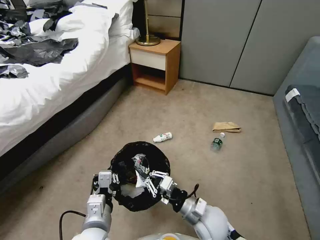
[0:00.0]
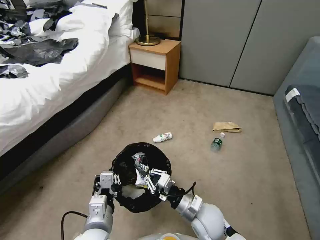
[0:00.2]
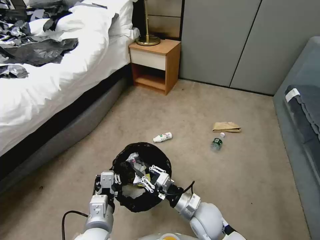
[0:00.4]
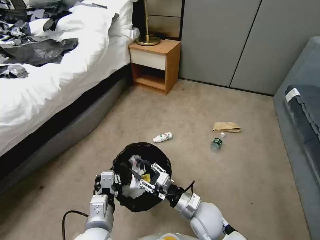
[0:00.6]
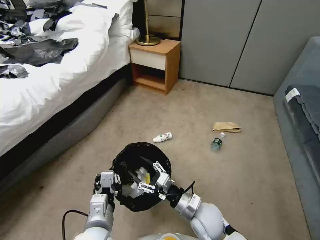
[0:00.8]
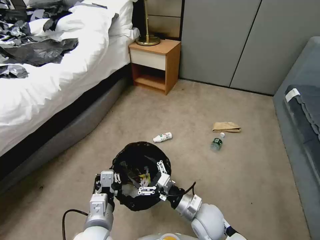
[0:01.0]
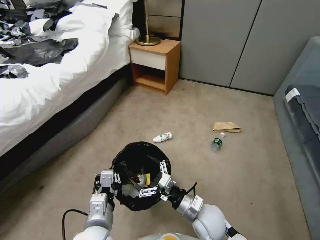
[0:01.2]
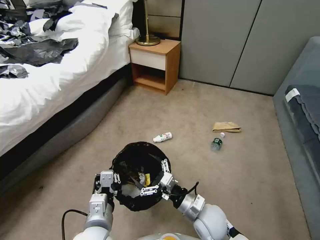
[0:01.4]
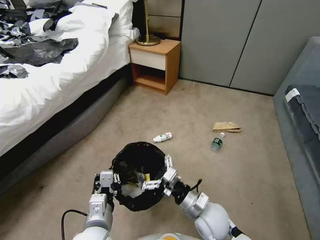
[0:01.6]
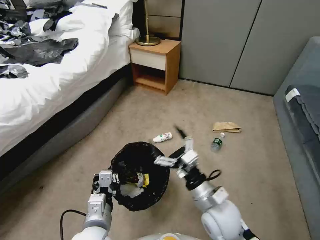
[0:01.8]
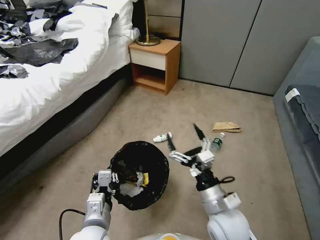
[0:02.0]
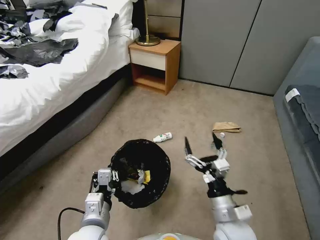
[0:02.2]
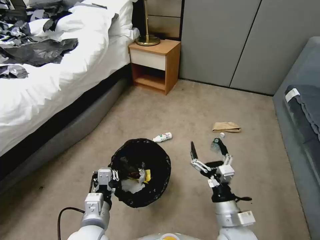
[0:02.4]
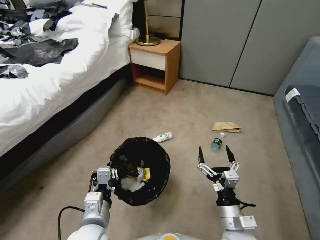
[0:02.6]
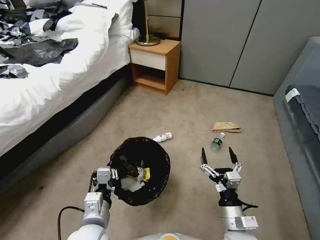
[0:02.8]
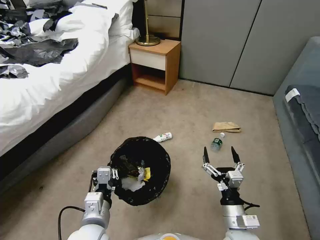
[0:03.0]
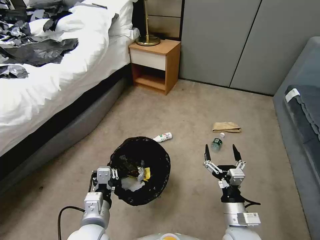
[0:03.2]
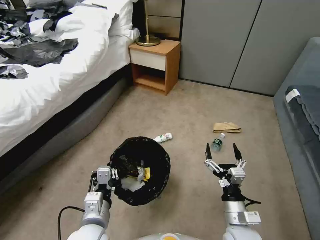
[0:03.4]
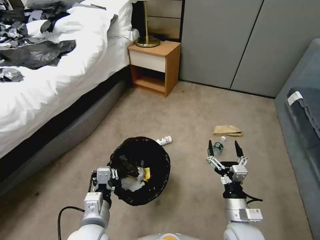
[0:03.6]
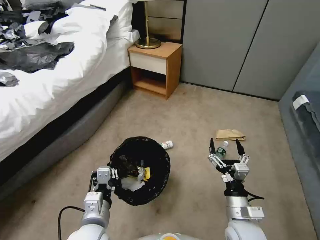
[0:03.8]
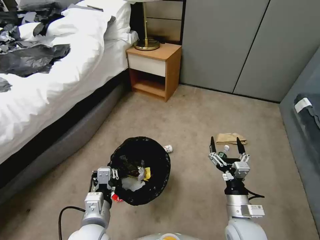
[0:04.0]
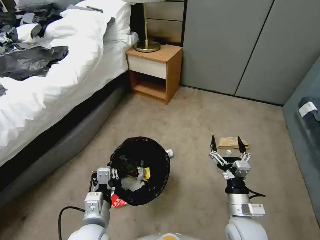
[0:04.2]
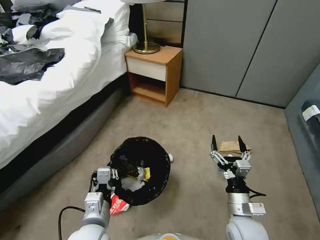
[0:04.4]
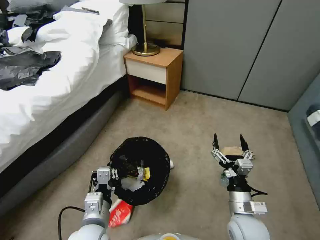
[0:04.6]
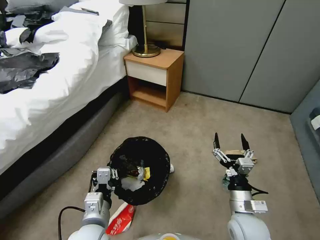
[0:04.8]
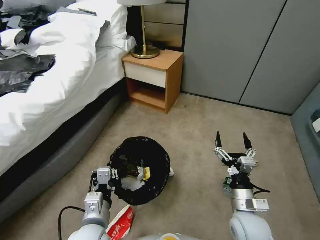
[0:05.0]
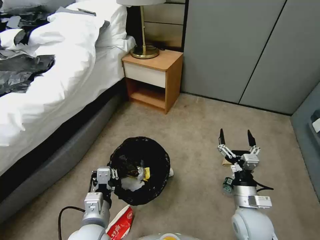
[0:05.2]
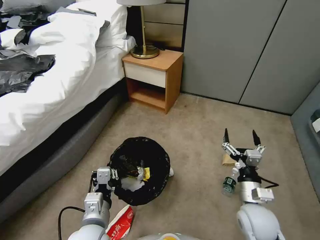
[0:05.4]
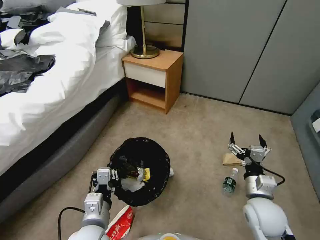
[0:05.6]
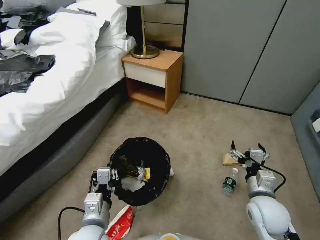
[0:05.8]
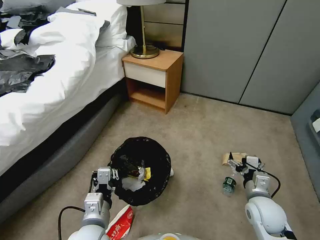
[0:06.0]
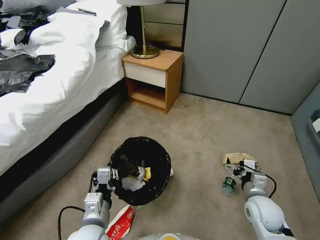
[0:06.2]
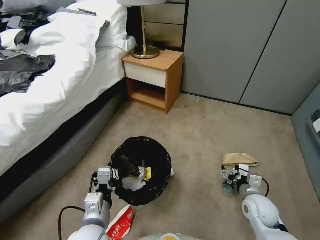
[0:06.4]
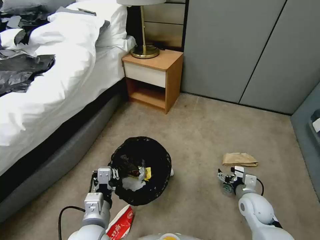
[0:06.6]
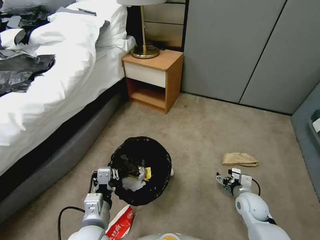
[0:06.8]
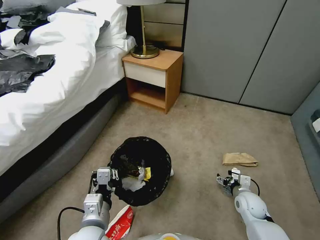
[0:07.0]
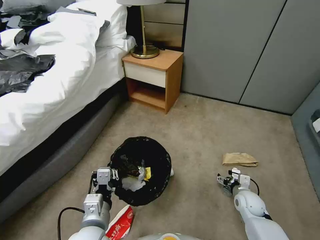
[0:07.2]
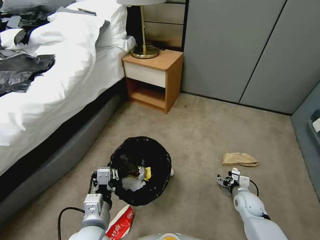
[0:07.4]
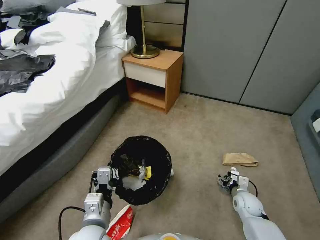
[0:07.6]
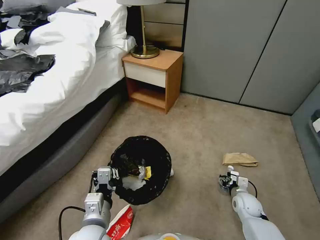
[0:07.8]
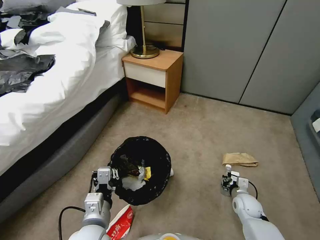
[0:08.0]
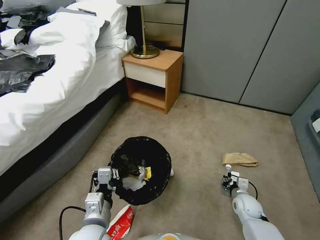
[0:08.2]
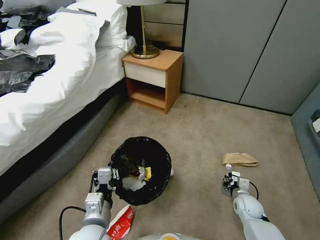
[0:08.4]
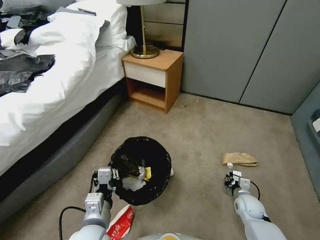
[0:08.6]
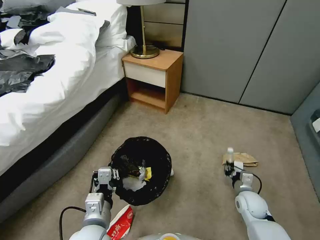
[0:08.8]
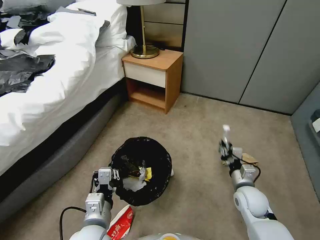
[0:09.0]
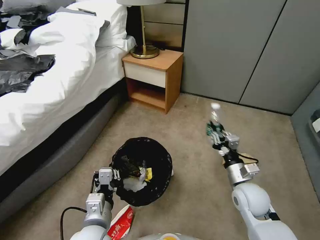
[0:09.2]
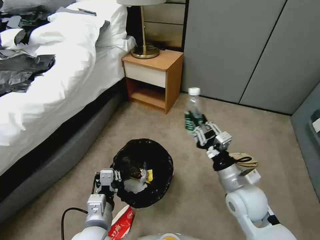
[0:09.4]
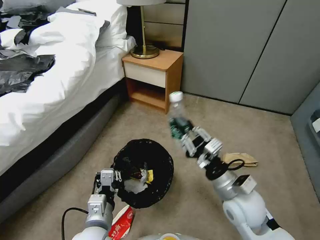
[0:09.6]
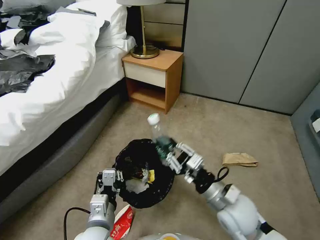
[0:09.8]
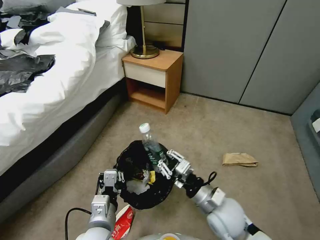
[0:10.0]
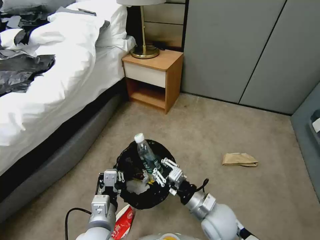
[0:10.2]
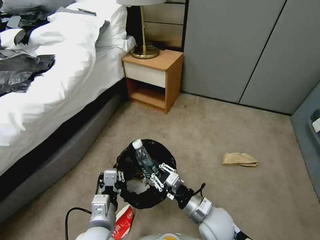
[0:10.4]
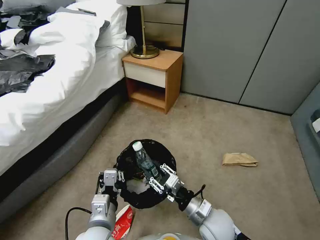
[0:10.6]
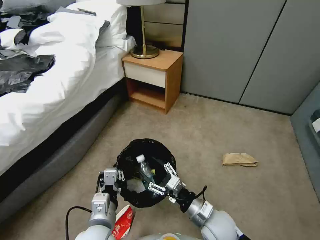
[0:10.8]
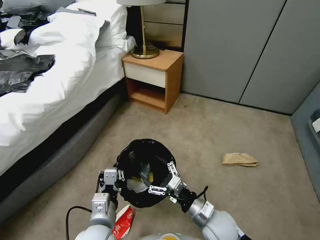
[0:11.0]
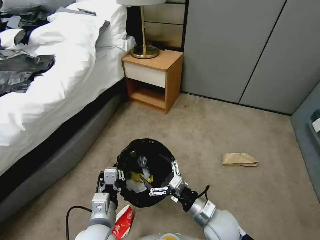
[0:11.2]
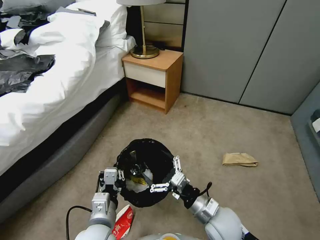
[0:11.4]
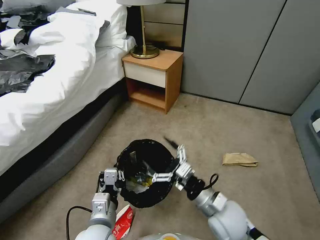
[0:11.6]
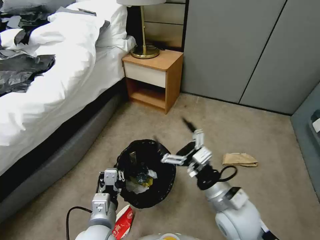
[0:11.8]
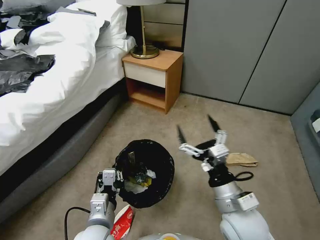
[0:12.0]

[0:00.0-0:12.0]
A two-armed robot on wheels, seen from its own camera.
Task of the whole recording: Pick up the trash bin, then pick up the garbage from the floor and place it into the trash bin.
0:00.0 to 0:01.6: The right gripper opens its fingers.
0:01.6 to 0:03.0: The right gripper shifts approximately 10 cm to the right and backward, and reaches about 10 cm upward, then returns.
0:04.4 to 0:06.0: The right gripper shifts approximately 5 cm to the right.
0:06.0 to 0:07.6: The right gripper heads downward and forward, covering roughly 15 cm.
0:07.6 to 0:09.0: The right gripper closes up.
0:09.0 to 0:10.4: The right gripper goes approximately 20 cm to the left, backward and upward.
0:10.4 to 0:12.0: The right gripper is displaced upward by approximately 10 cm, and opens.

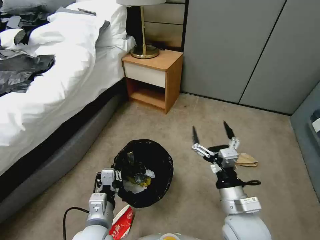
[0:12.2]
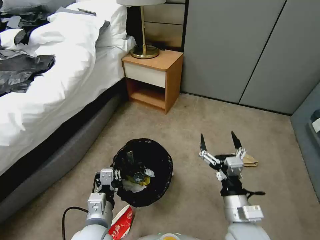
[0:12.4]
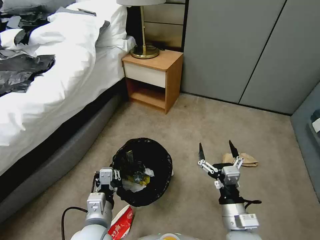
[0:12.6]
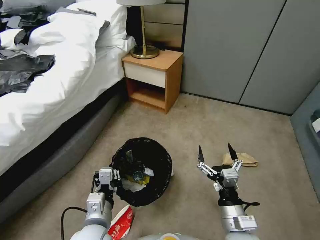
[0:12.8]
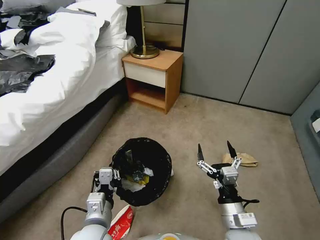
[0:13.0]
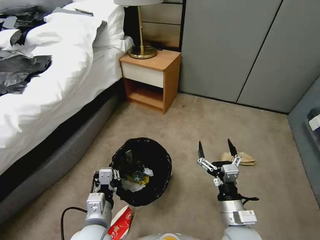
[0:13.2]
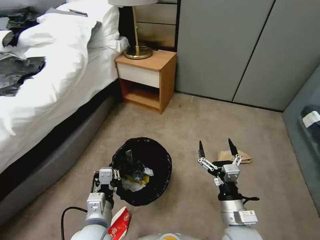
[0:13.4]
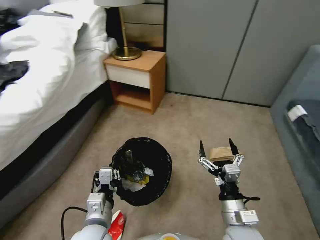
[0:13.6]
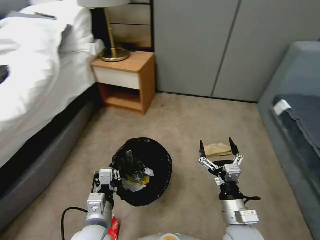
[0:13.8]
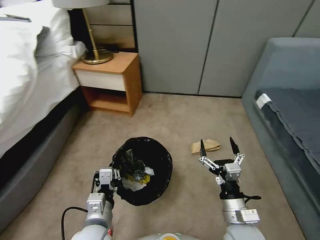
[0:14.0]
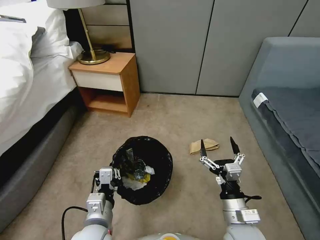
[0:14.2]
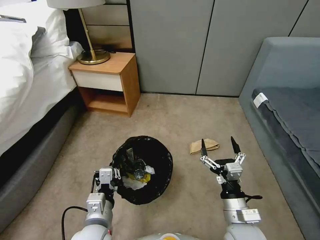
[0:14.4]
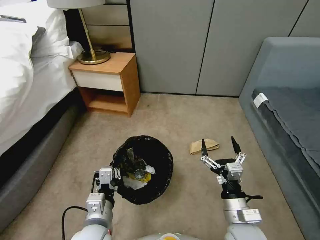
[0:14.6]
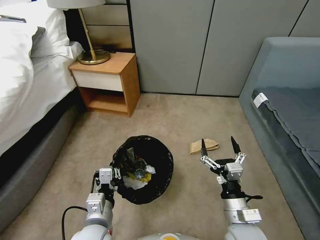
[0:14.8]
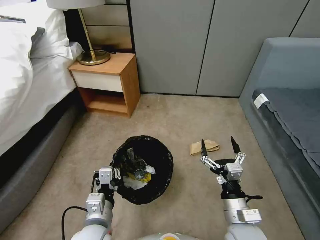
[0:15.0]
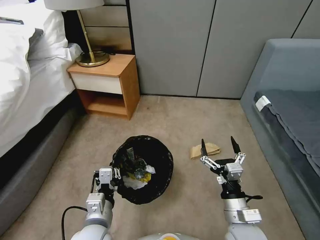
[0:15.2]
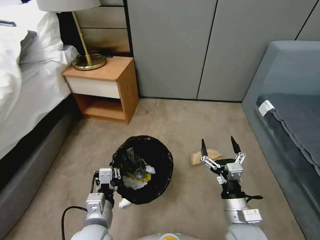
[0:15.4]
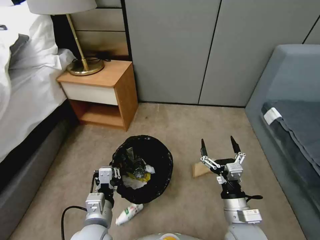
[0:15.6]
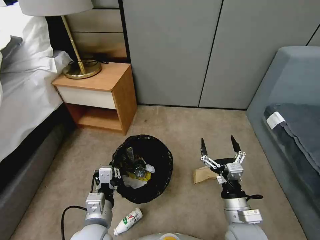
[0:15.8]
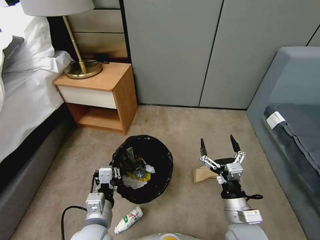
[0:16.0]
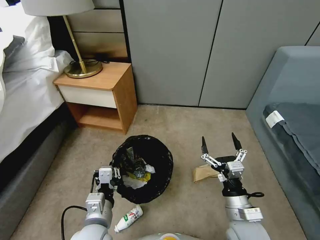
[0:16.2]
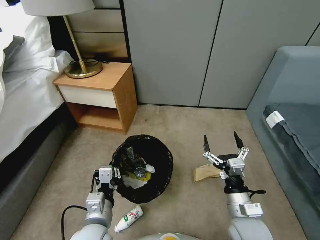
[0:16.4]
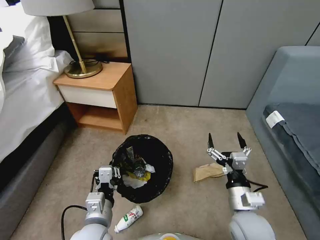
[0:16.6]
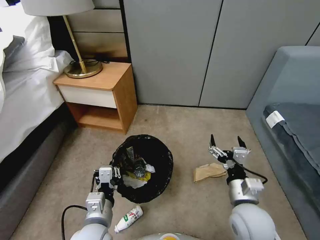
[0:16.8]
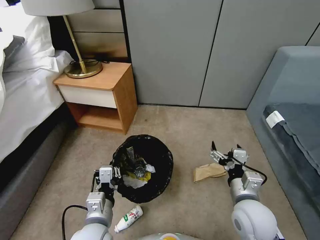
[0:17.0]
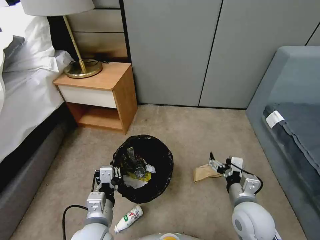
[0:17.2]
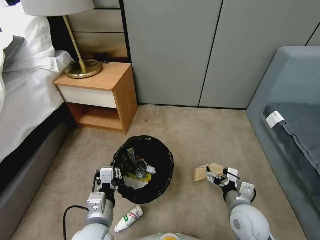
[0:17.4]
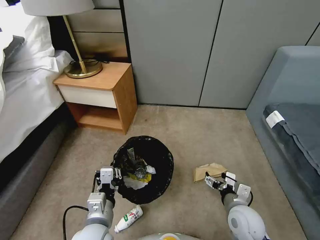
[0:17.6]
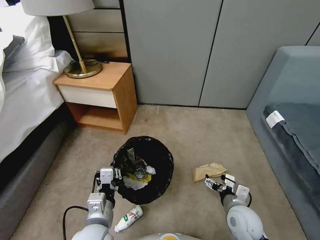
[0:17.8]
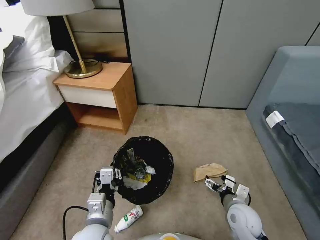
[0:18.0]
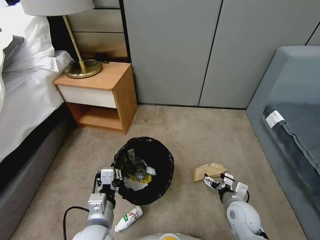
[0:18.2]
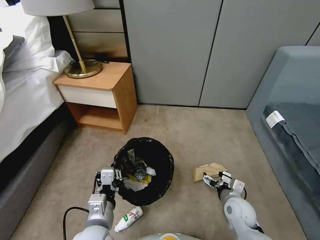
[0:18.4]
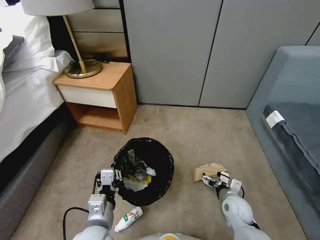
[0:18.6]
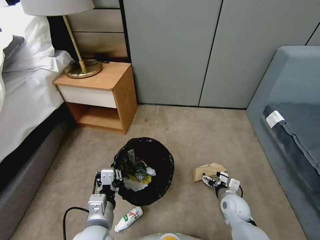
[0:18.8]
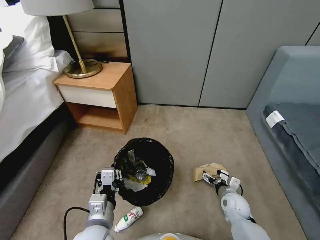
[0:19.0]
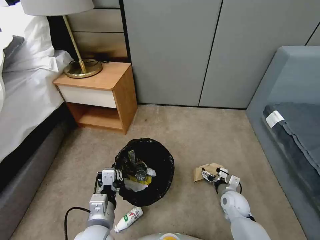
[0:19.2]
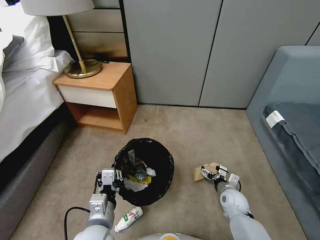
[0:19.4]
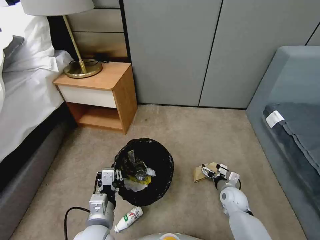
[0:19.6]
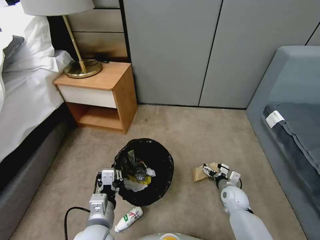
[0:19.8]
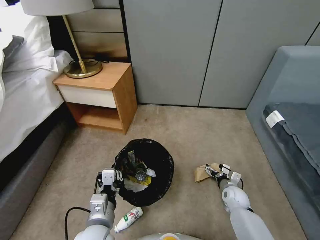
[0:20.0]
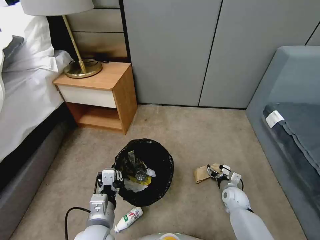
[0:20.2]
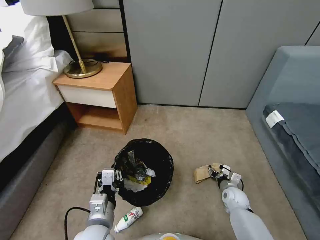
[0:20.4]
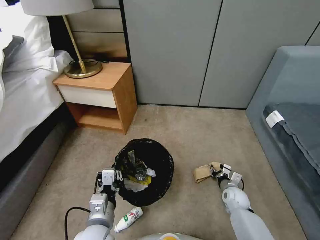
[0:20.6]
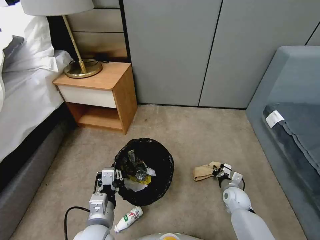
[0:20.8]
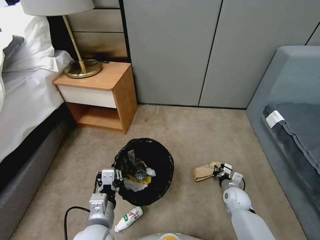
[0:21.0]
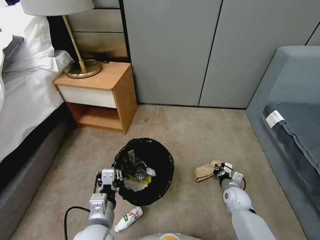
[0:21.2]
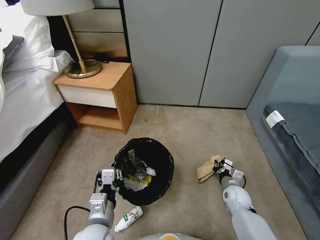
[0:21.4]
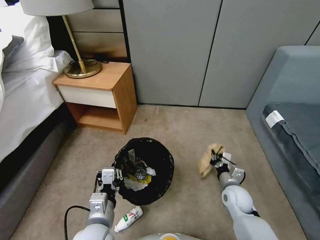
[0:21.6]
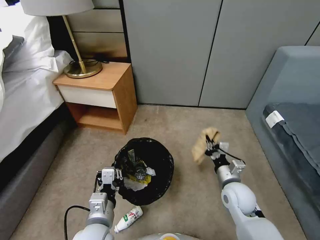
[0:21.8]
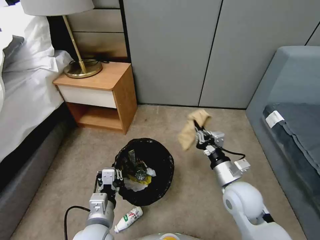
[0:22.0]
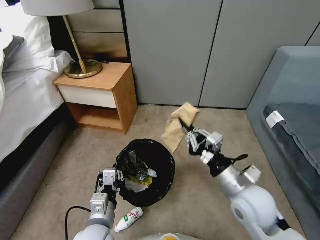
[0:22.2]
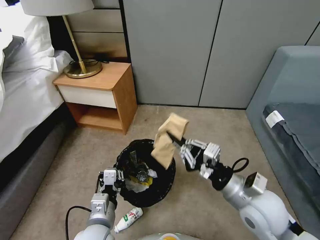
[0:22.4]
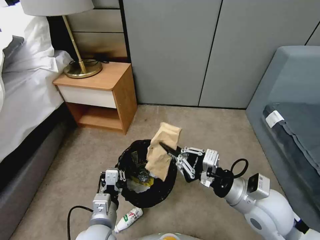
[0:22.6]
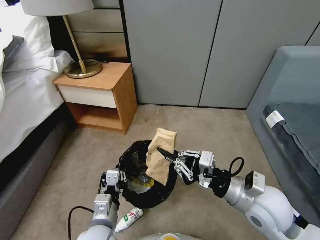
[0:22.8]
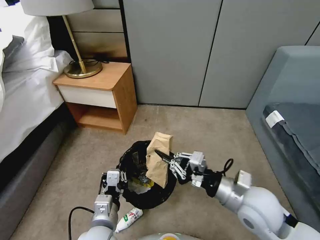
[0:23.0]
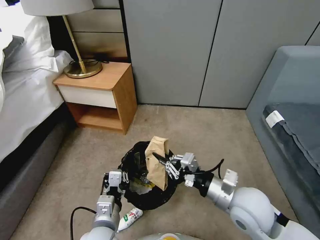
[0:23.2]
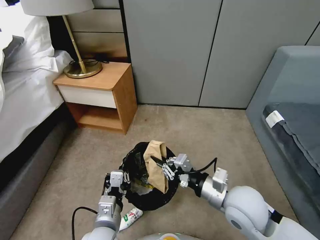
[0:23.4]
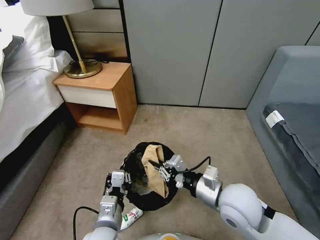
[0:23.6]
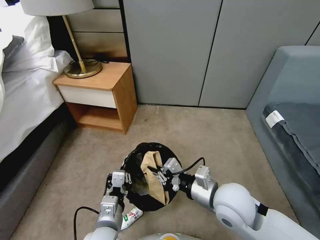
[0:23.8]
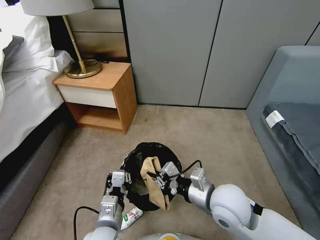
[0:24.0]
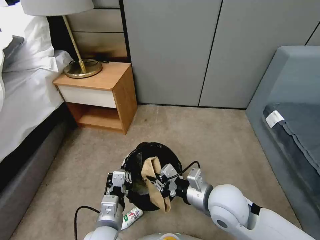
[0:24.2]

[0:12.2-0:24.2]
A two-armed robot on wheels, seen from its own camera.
Task of the whole recording: Pick up the trash bin, then pick up the garbage from the floor and place it into the trash bin.
0:12.2 to 0:13.8: The right gripper travels downward by about 5 cm.
0:16.6 to 0:18.2: The right gripper travels downward and forward by approximately 10 cm.
0:18.2 to 0:19.8: The right gripper shifts some 10 cm forward and downward.
0:19.8 to 0:21.2: The right gripper closes.
0:21.2 to 0:22.6: The right gripper moves upward, approximately 30 cm.
0:22.6 to 0:24.2: The right gripper travels to the left by roughly 10 cm.
